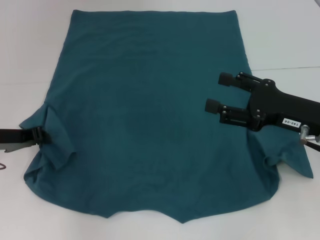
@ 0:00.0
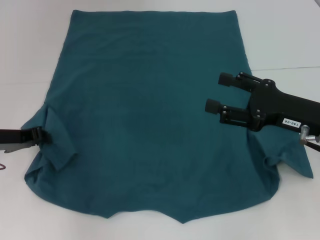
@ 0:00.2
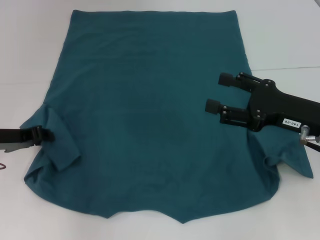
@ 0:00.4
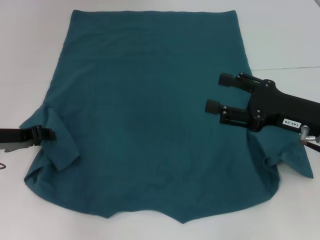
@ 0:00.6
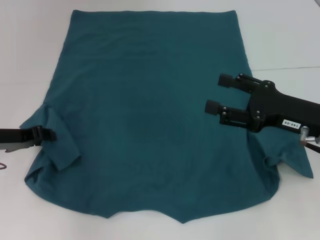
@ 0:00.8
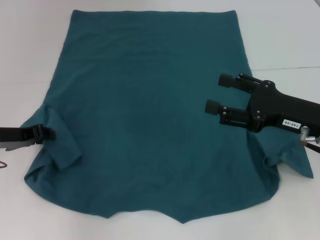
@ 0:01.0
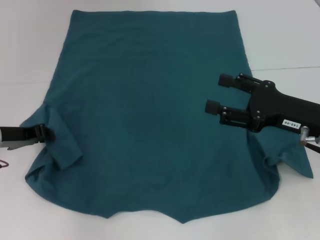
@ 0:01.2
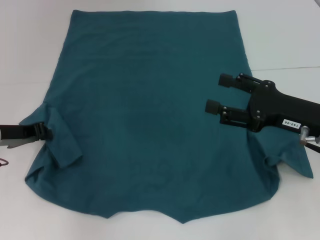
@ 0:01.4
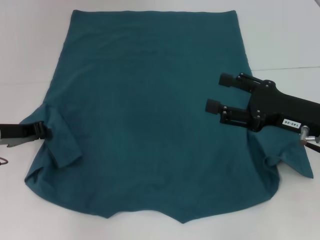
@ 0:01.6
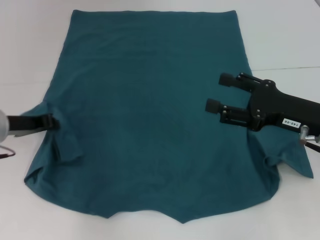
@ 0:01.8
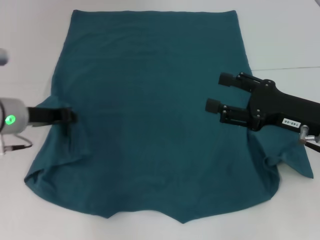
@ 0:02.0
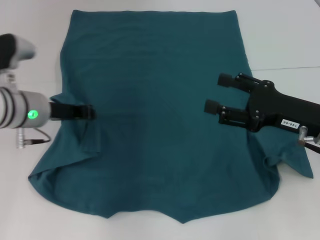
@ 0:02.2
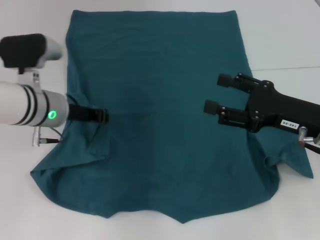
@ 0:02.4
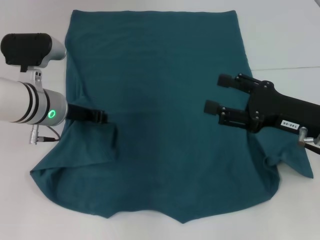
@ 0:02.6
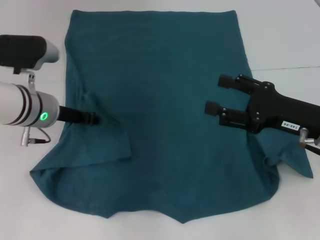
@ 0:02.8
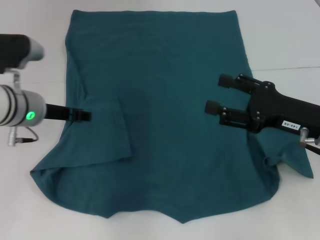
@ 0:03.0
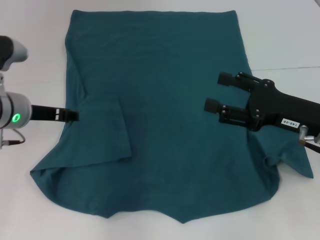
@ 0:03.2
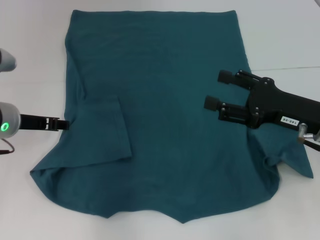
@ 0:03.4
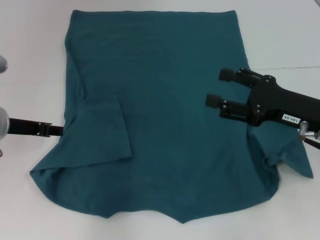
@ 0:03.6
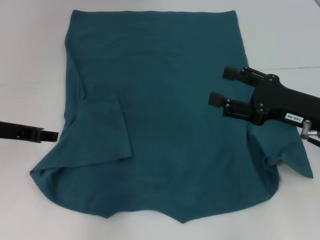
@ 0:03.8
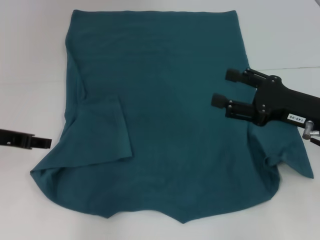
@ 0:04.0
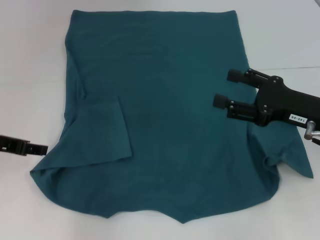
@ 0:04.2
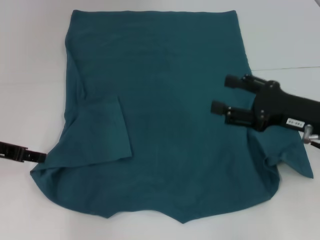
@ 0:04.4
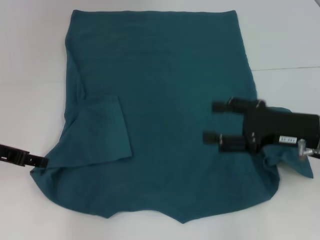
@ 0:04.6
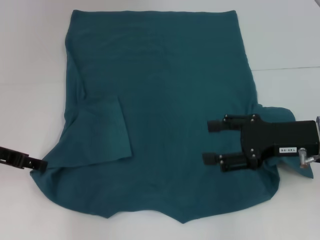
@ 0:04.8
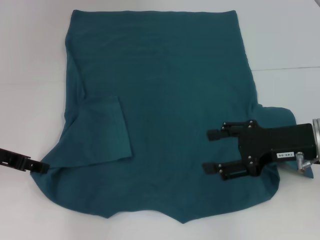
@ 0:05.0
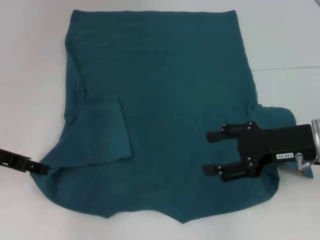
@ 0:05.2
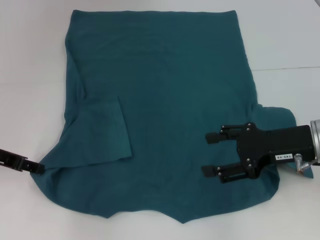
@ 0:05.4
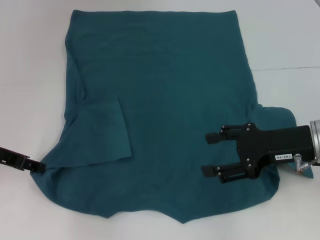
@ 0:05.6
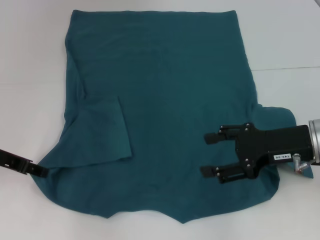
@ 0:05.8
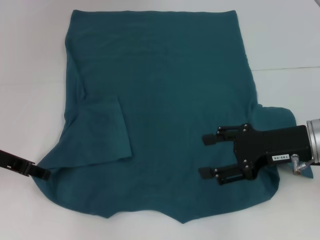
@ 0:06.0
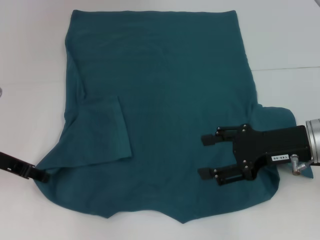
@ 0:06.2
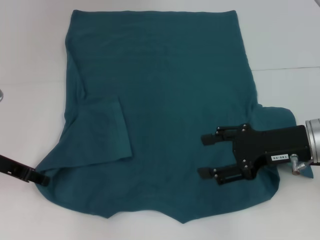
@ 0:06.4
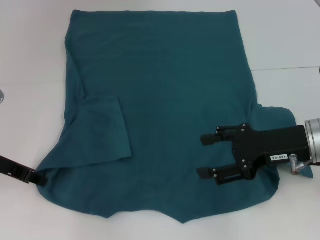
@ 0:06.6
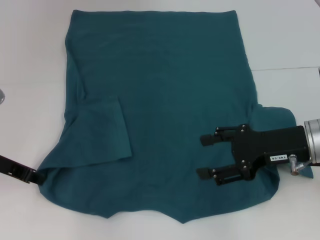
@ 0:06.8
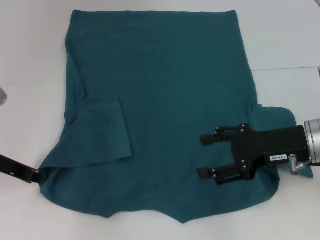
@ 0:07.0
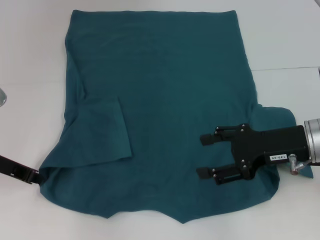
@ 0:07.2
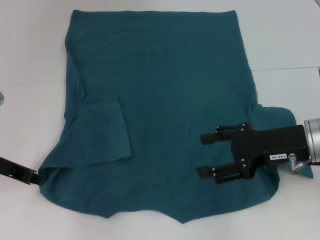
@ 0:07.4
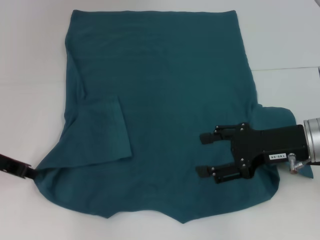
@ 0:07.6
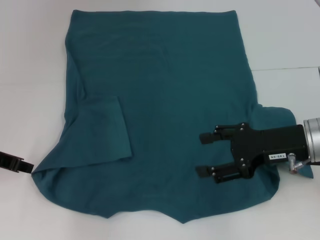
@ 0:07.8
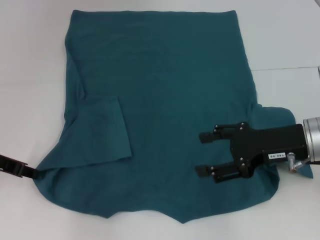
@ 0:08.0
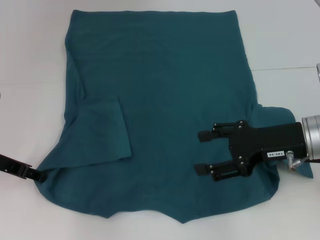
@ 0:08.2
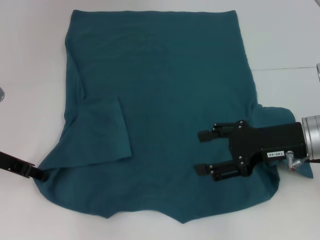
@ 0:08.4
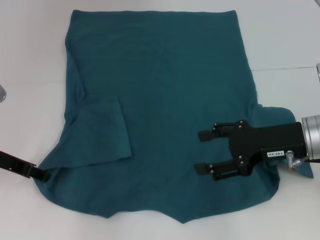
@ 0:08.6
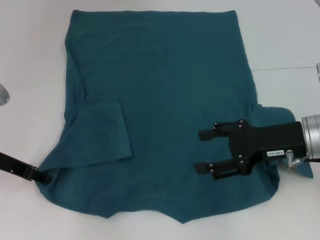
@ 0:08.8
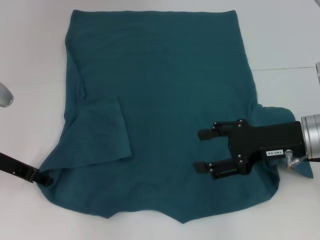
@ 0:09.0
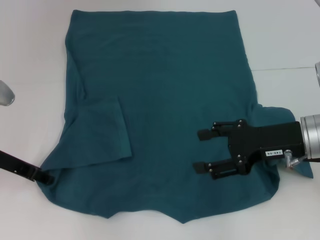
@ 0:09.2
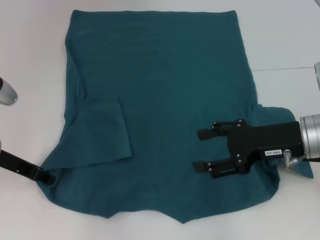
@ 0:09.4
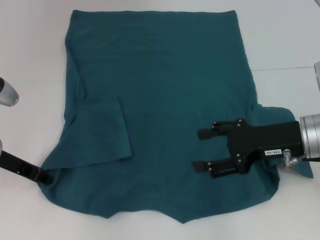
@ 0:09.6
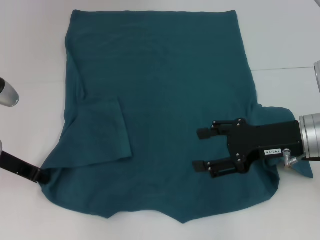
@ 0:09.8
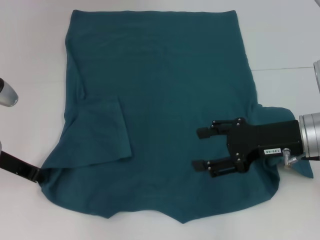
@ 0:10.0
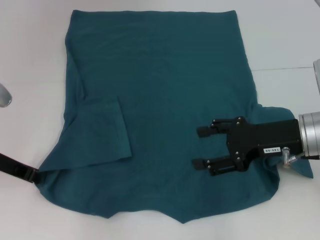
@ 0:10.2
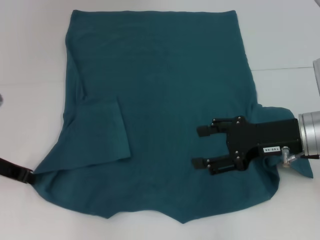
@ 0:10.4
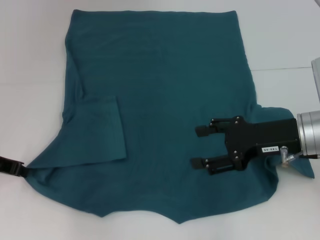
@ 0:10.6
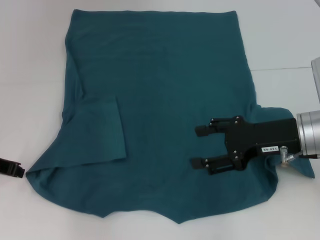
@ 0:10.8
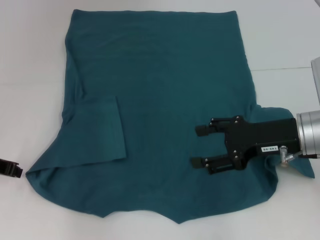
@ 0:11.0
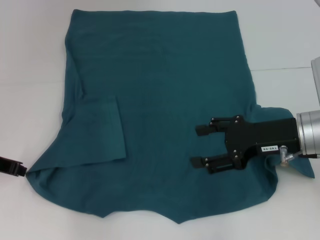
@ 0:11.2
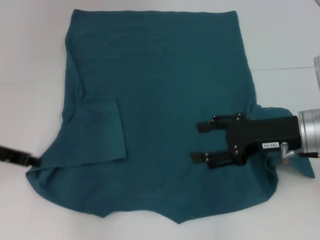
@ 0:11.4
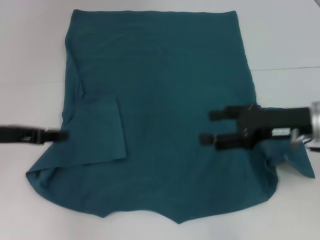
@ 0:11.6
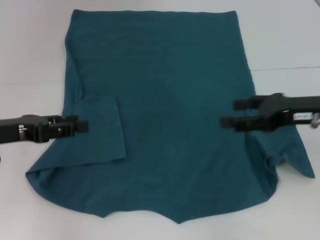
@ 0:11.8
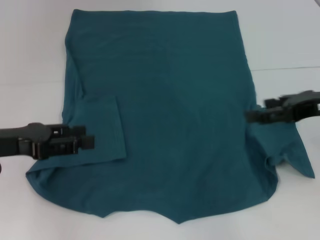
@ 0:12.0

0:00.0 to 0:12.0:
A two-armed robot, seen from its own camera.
Step, 0:00.0 to 0:03.0: Fold the bottom left sleeve with your left hand.
0:00.0 to 0:01.6: Both grippers stay about where they are.
0:01.6 to 0:03.0: The left gripper goes roughly 5 cm to the right, and opens.
0:03.0 to 0:04.4: The left gripper shifts about 10 cm to the left.
0:06.0 to 0:07.6: The left gripper closes its fingers.
0:07.6 to 0:09.0: The left gripper opens up.
0:09.0 to 0:10.4: The left gripper closes.
0:10.4 to 0:12.0: The left gripper ends up some 5 cm from where it was, and opens. The right gripper heads to the right and upward, covering about 10 cm.

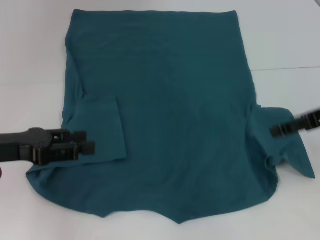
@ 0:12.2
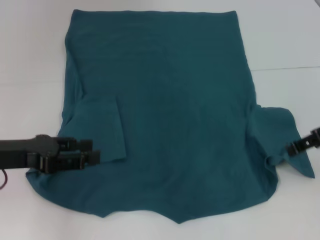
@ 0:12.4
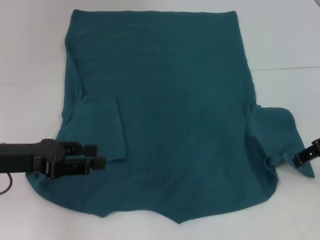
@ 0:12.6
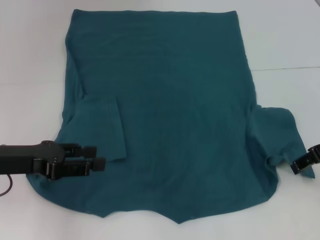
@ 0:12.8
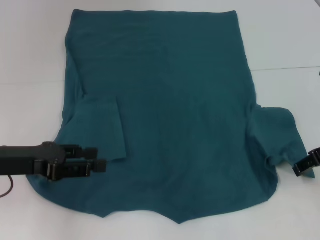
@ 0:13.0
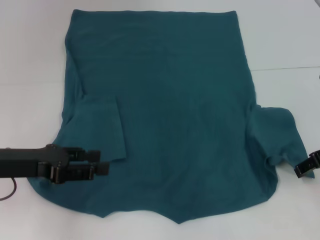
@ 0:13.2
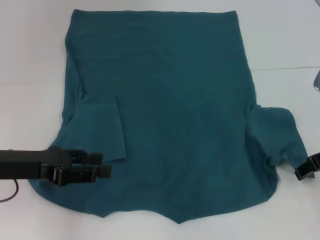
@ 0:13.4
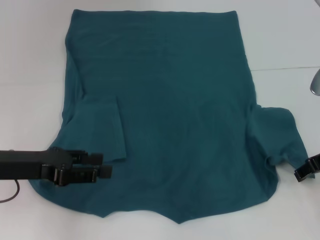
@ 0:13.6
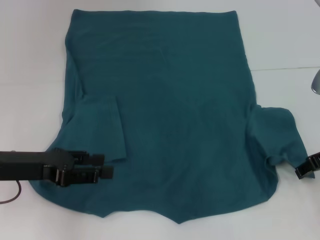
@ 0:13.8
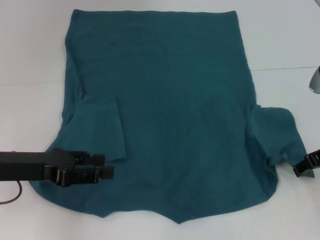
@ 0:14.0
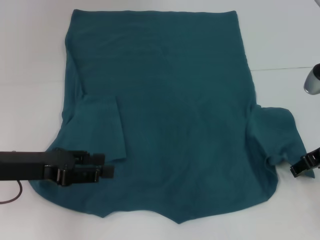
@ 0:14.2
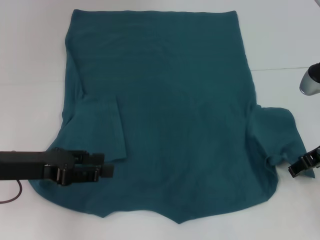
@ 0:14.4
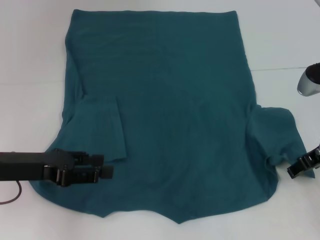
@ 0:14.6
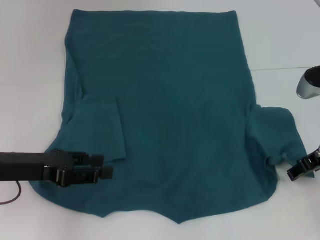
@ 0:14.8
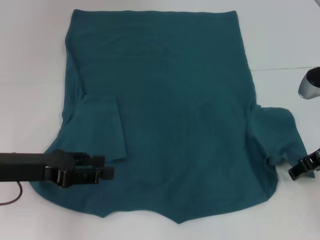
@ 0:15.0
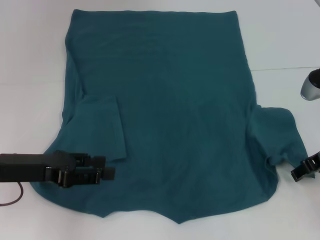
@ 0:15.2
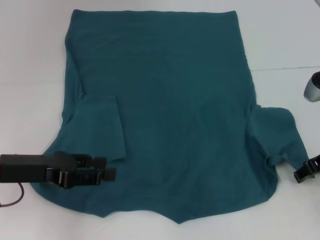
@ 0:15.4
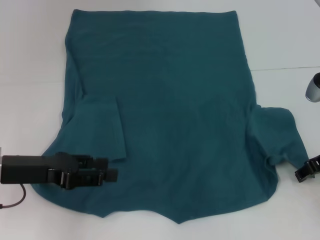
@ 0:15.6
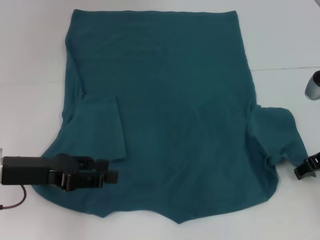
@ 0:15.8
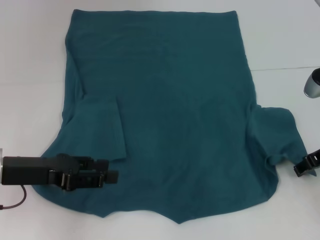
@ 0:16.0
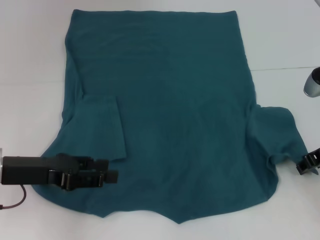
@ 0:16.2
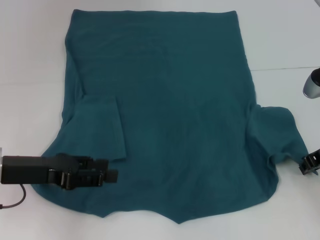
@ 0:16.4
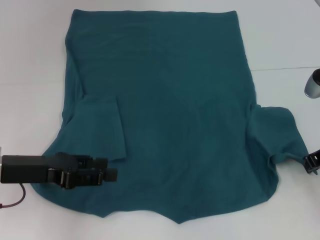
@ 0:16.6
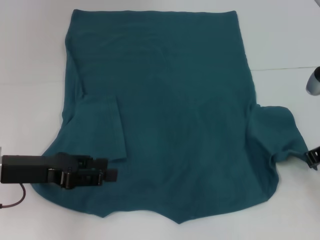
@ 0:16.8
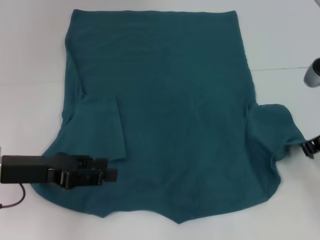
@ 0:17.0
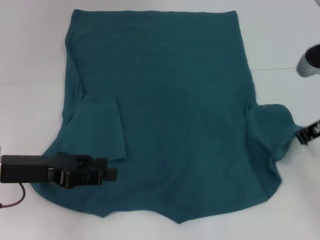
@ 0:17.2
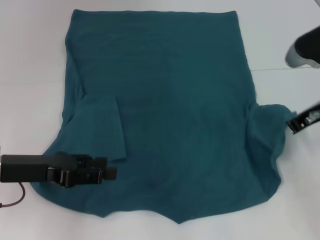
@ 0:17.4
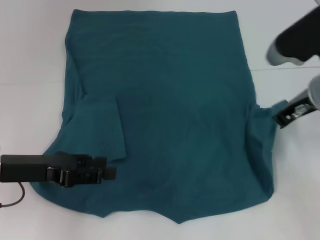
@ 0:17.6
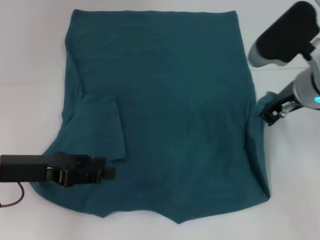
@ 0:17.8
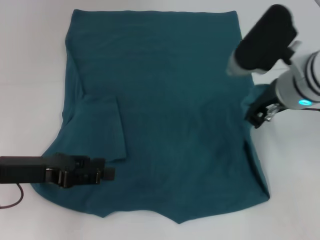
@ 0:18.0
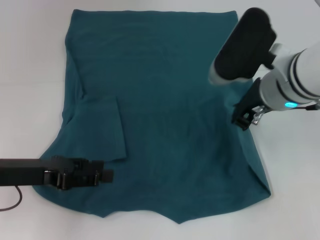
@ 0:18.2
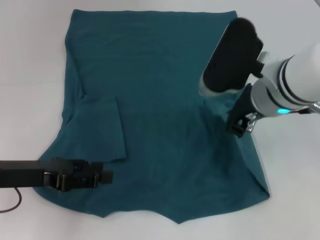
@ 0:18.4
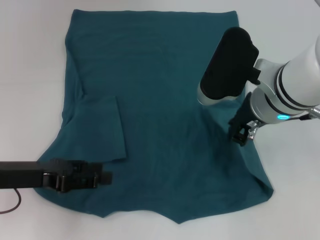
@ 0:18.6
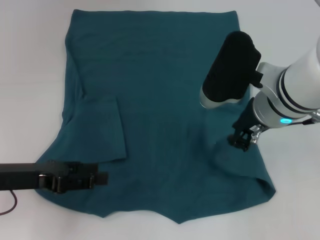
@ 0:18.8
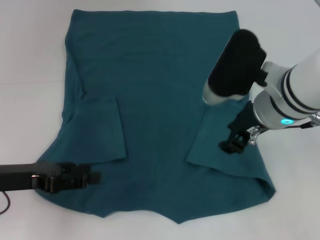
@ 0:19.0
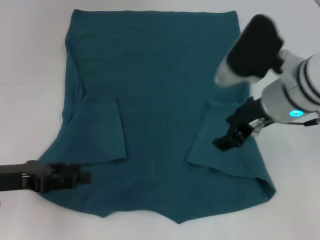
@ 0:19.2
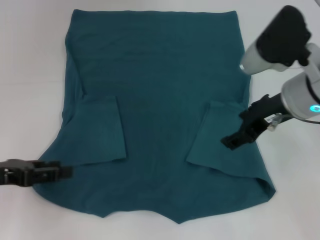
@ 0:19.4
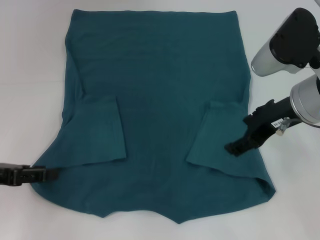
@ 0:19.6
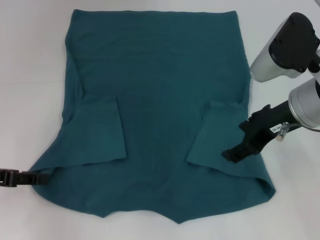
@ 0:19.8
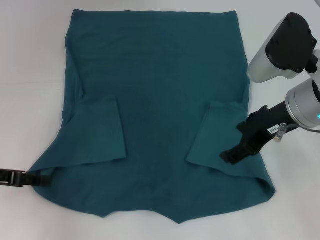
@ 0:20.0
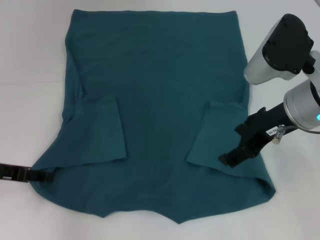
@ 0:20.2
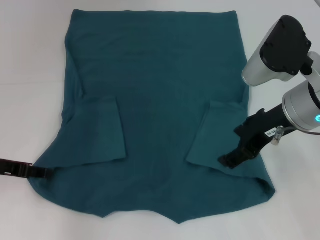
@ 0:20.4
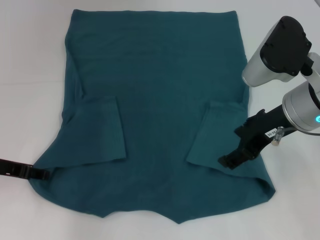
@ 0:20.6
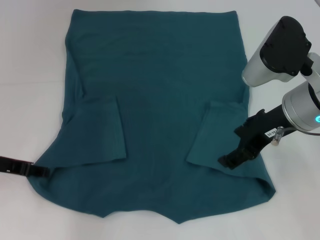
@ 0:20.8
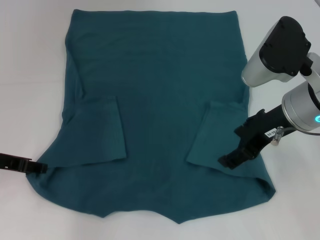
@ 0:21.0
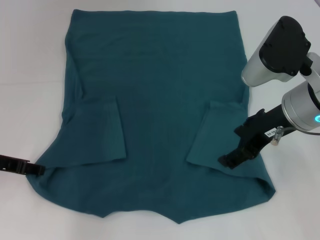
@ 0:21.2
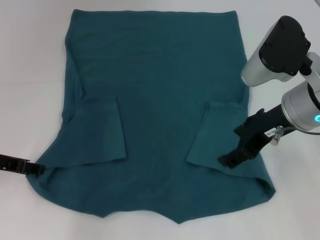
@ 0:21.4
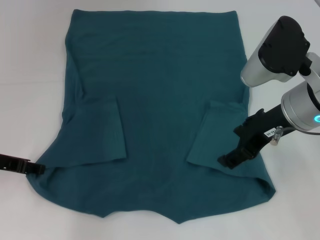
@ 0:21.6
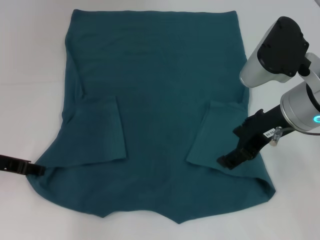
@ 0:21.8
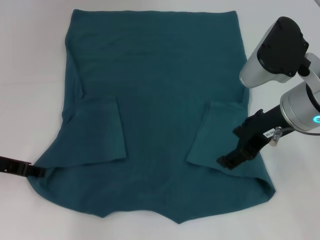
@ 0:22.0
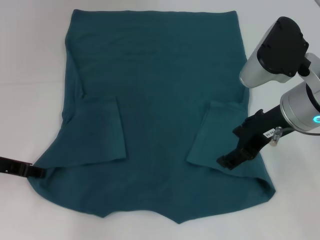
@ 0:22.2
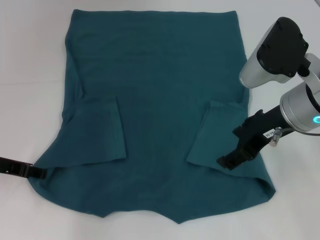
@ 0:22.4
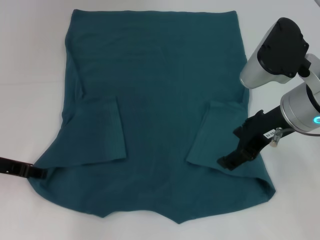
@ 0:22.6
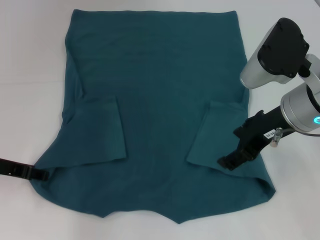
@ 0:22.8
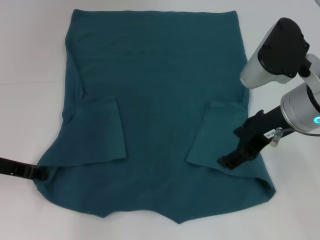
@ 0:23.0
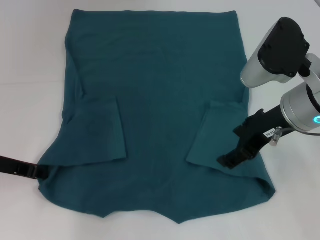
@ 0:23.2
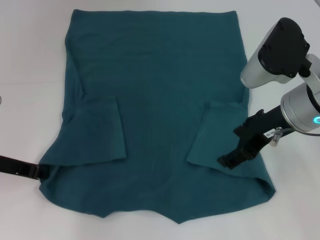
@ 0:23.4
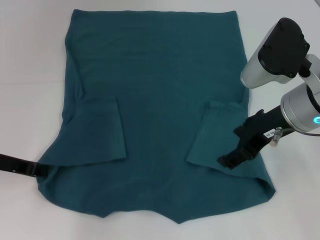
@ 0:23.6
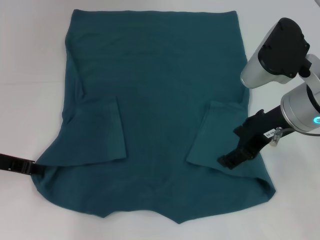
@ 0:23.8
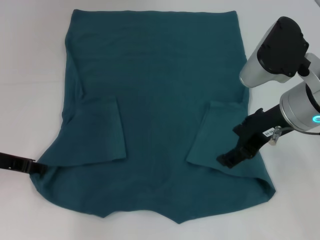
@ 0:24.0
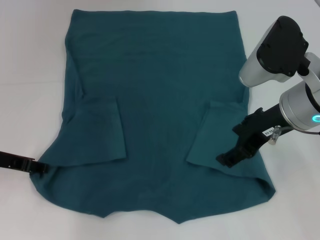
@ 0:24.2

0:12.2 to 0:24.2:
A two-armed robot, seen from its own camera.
Step, 0:12.2 to 0:18.8: Fold the bottom right sleeve to the right.
0:12.2 to 0:13.8: The right gripper is displaced downward by about 5 cm.
0:13.8 to 0:15.2: The grippers stay close to where they were, moving slightly.
0:15.2 to 0:16.6: The right gripper closes.
0:16.6 to 0:18.2: The right gripper goes approximately 15 cm to the left and upward.
0:18.2 to 0:19.8: The right gripper opens up. The left gripper goes some 5 cm to the left.
0:19.8 to 0:21.2: The left gripper ends up approximately 5 cm from where it was.
0:21.2 to 0:22.6: The two grippers keep their place.
0:22.6 to 0:24.2: The two grippers keep their place.
